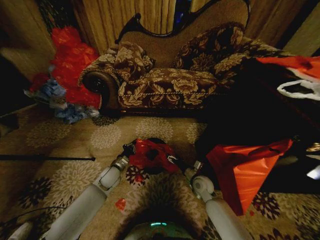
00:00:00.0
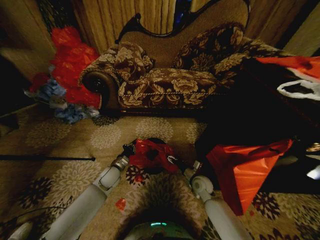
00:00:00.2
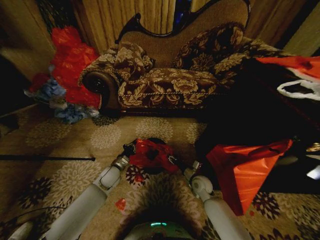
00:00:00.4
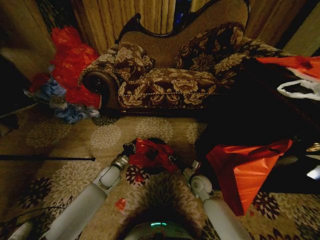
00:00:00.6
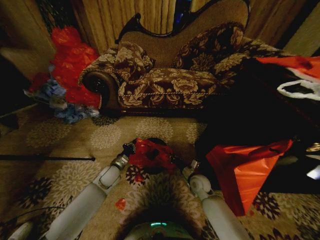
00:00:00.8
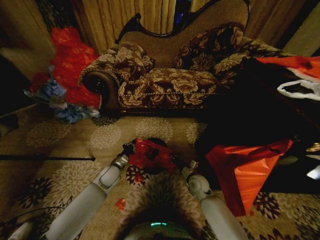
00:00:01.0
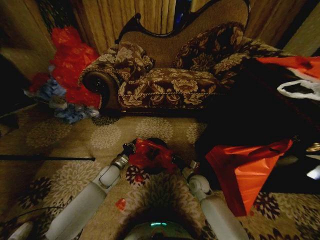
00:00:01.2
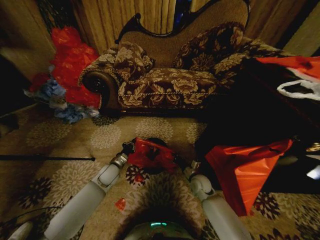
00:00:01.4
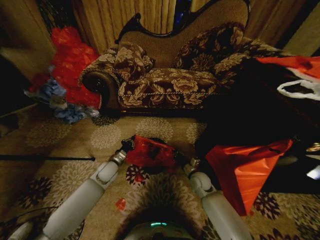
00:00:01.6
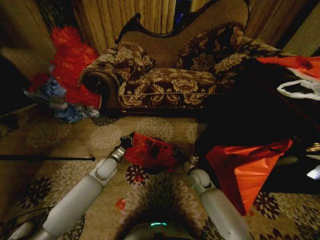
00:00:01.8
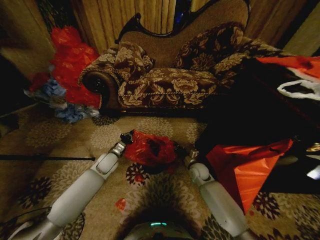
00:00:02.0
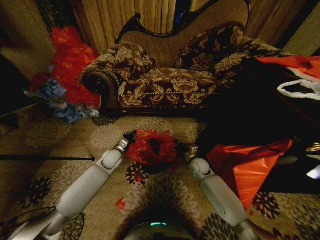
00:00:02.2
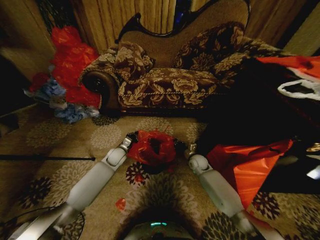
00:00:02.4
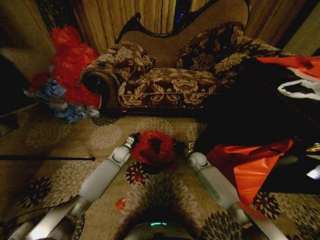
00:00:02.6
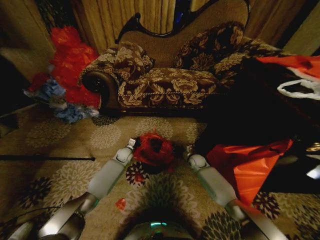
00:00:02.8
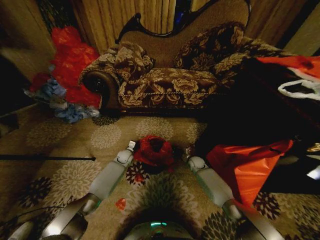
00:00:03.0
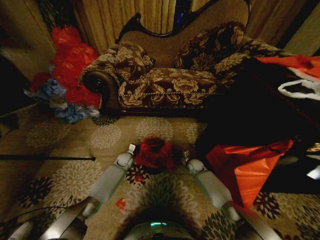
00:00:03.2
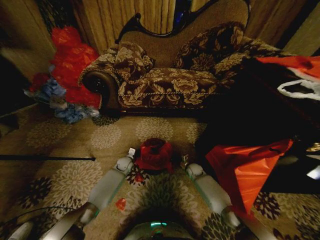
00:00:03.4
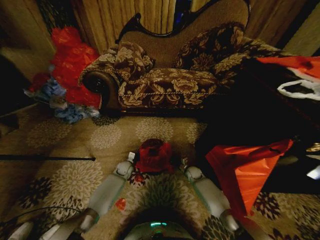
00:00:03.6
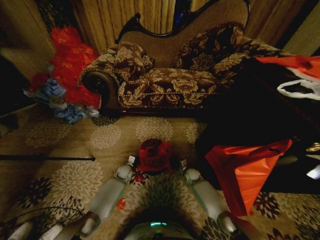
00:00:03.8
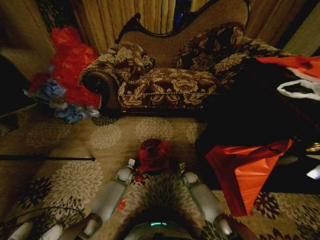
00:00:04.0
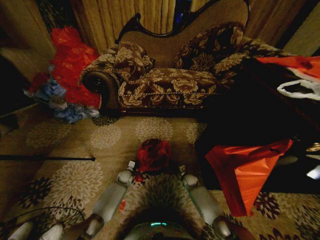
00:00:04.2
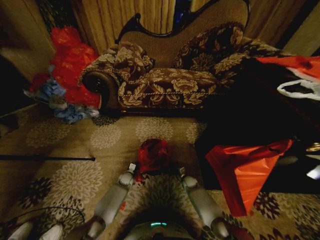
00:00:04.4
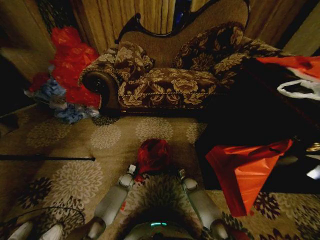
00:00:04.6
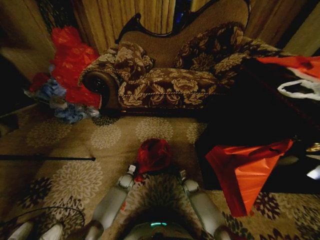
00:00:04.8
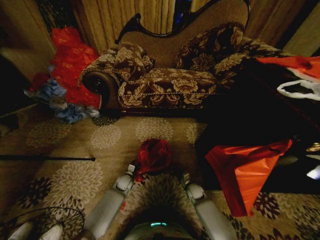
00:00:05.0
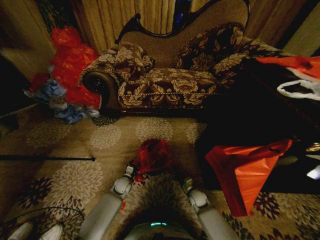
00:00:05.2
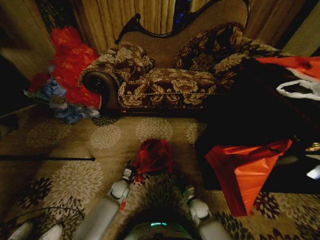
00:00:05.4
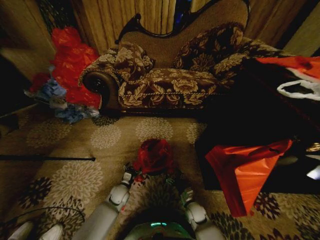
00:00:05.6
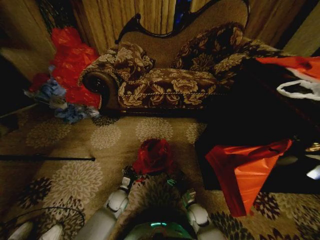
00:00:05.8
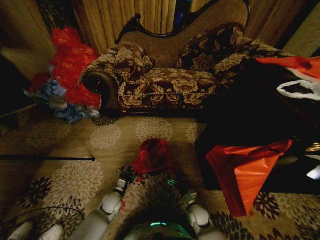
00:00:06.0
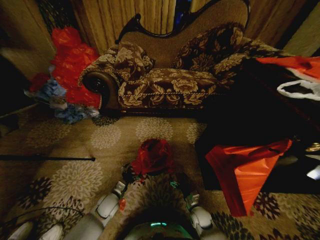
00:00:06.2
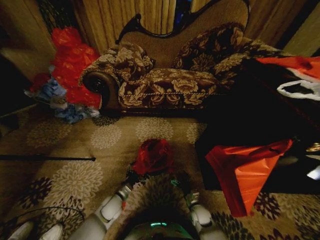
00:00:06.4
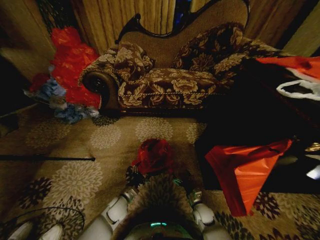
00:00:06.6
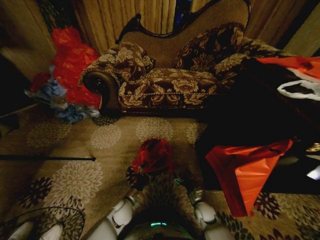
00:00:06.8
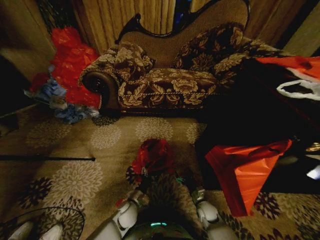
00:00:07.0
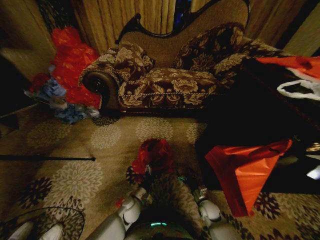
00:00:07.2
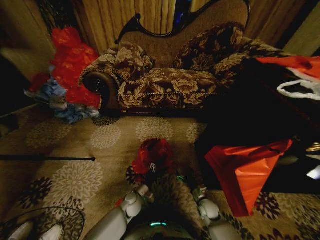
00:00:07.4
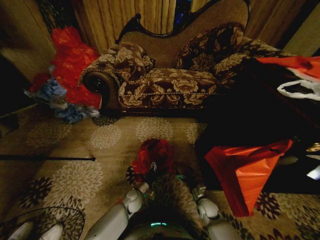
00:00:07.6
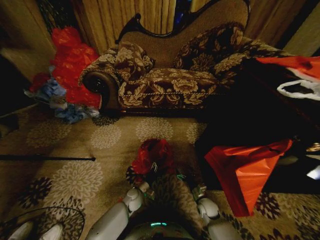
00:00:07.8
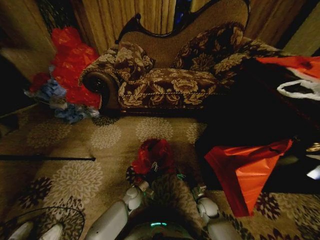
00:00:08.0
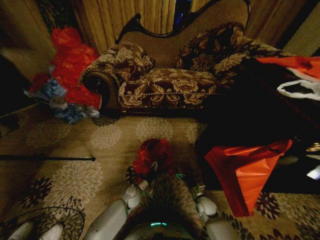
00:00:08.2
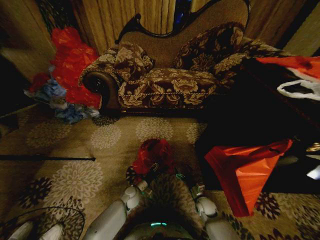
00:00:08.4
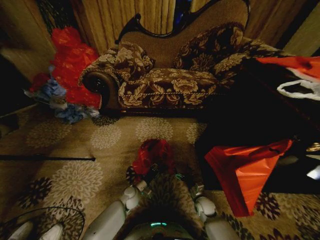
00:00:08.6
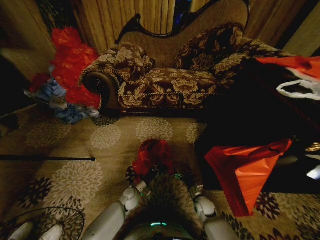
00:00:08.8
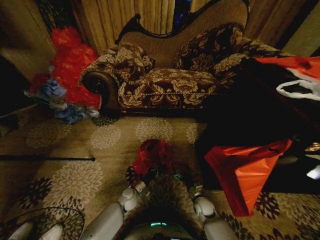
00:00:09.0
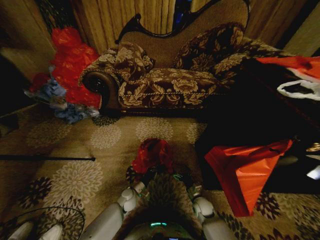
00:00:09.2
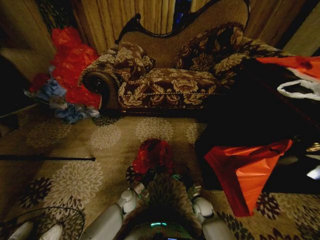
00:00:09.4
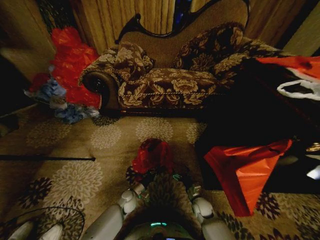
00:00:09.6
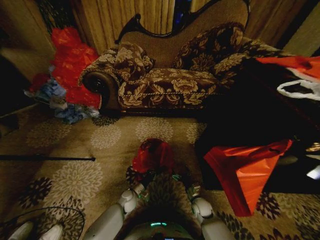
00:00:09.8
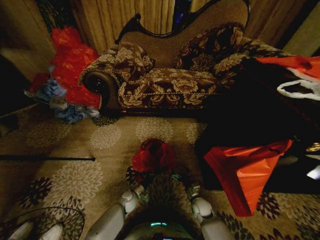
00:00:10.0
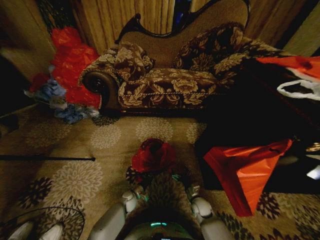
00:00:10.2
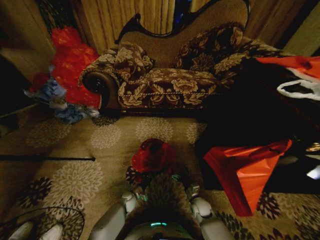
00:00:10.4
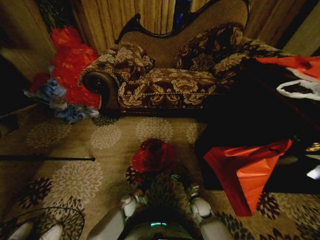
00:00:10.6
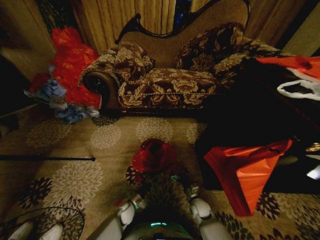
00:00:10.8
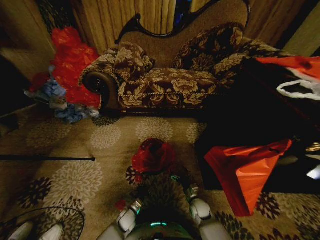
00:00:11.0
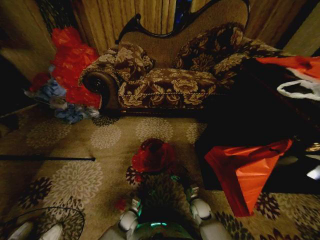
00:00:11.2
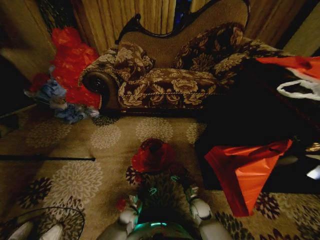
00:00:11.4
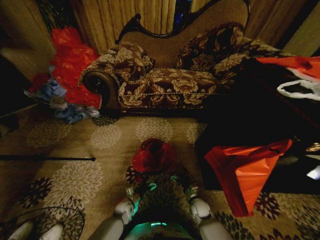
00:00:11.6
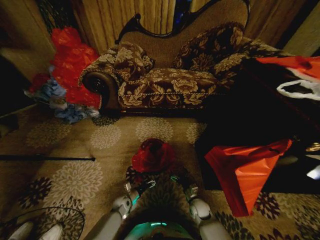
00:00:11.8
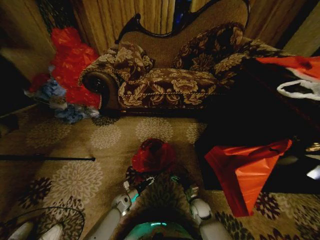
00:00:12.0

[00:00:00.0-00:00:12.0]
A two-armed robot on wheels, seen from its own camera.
Task of the whole recording: Place a garbage bag over the trash bin.
00:00:00.0 to 00:00:01.6: The right gripper closes its fingers.
00:00:01.6 to 00:00:03.0: The grippers both shift forward and downward by roughly 15 cm.
00:00:03.0 to 00:00:04.4: The grippers both shift downward and backward by approximately 15 cm.
00:00:04.4 to 00:00:06.0: The left gripper goes some 15 cm backward and upward, and opens its fingers. Meanwhile the right gripper travels backward by about 15 cm, and opens up.
00:00:06.0 to 00:00:07.6: The left gripper moves to the right, about 10 cm, while the right gripper heads to the right, covering roughly 5 cm.
00:00:07.6 to 00:00:09.0: The left gripper closes up.
00:00:09.0 to 00:00:10.4: The left gripper moves downward, some 10 cm.
00:00:10.4 to 00:00:12.0: The left gripper reaches approximately 10 cm backward, then returns, and opens its fingers.

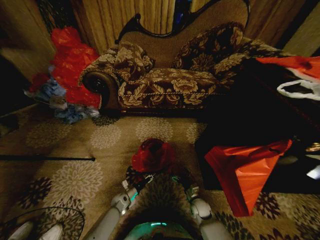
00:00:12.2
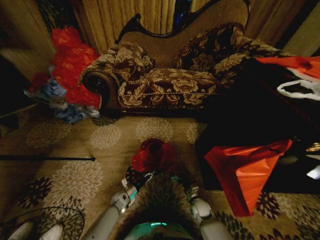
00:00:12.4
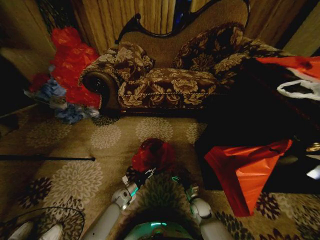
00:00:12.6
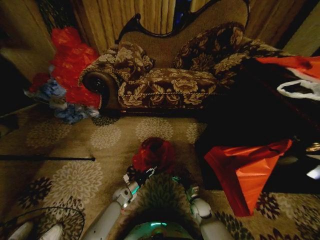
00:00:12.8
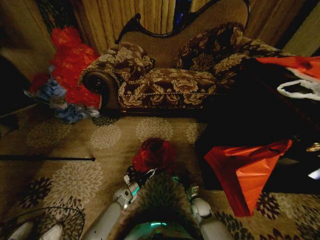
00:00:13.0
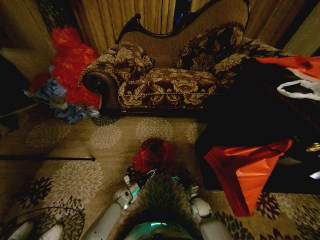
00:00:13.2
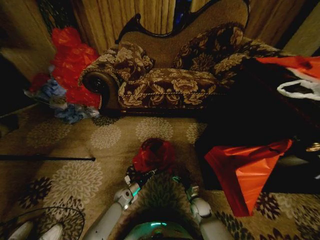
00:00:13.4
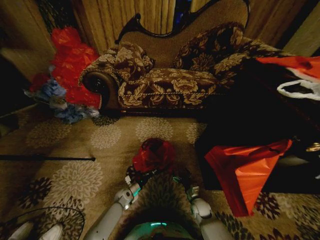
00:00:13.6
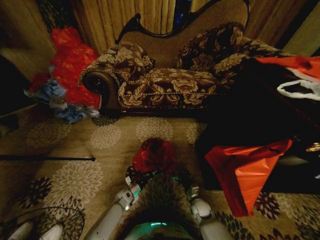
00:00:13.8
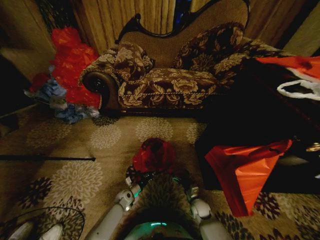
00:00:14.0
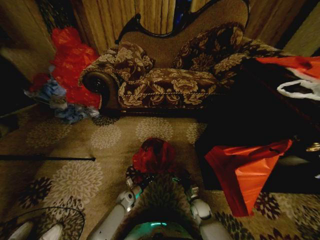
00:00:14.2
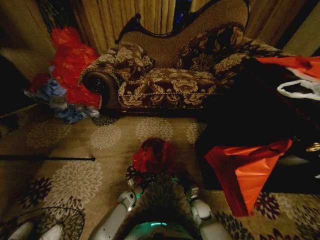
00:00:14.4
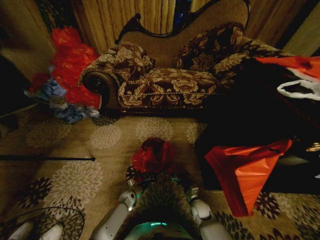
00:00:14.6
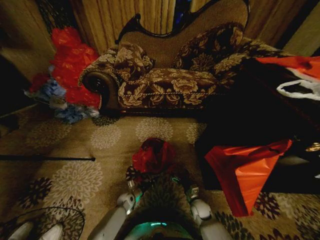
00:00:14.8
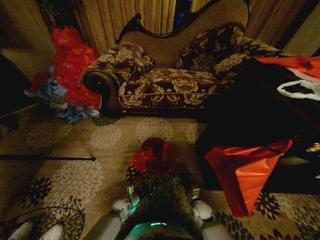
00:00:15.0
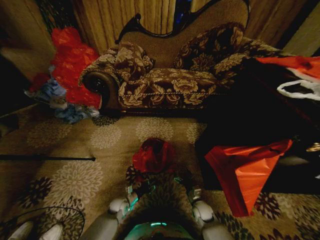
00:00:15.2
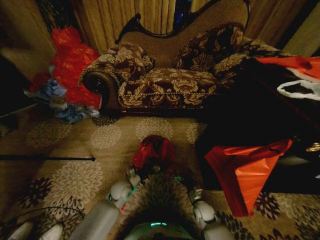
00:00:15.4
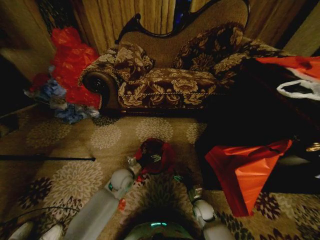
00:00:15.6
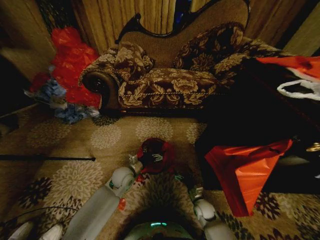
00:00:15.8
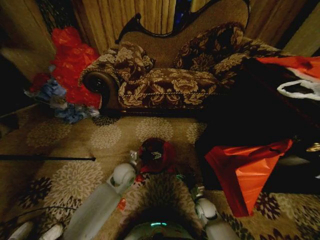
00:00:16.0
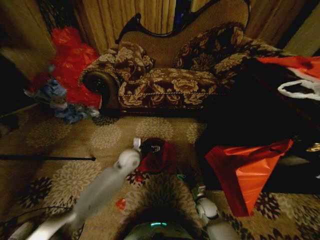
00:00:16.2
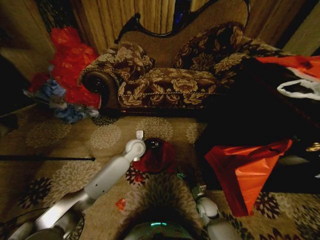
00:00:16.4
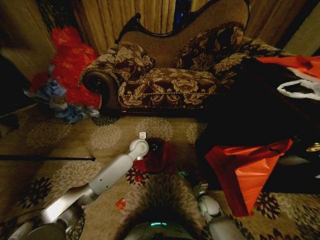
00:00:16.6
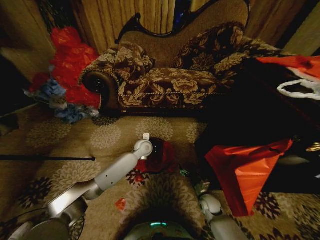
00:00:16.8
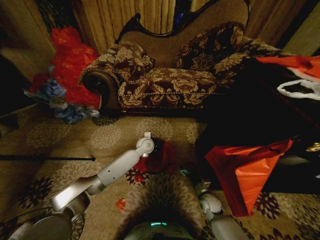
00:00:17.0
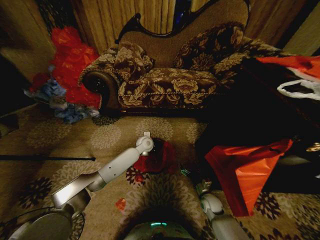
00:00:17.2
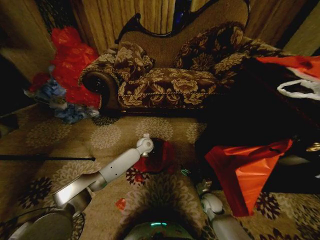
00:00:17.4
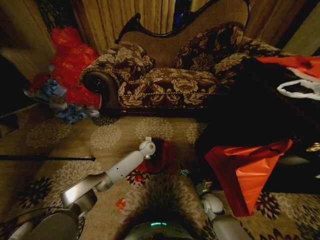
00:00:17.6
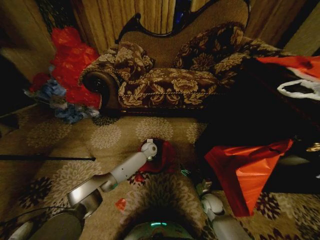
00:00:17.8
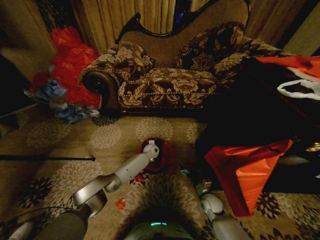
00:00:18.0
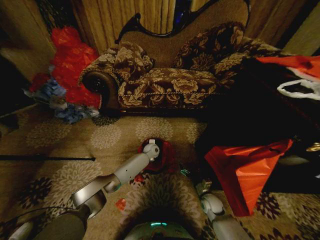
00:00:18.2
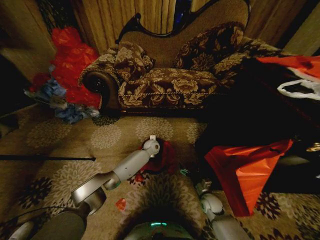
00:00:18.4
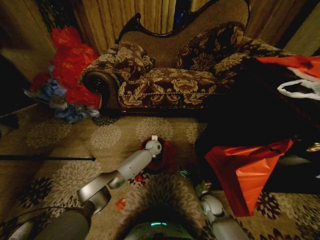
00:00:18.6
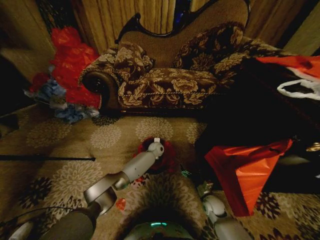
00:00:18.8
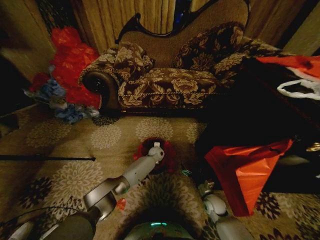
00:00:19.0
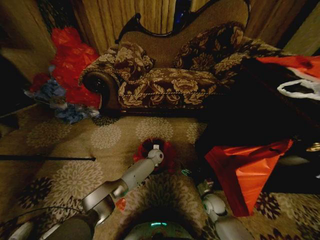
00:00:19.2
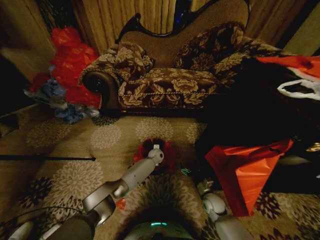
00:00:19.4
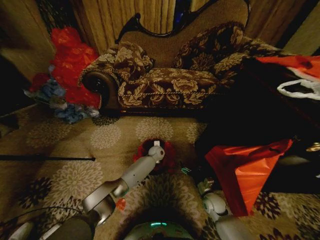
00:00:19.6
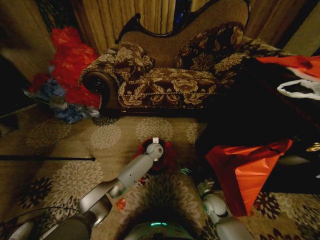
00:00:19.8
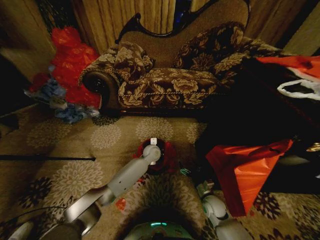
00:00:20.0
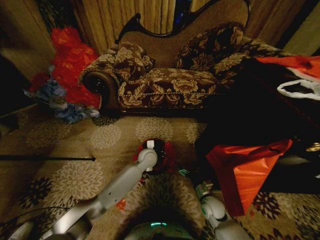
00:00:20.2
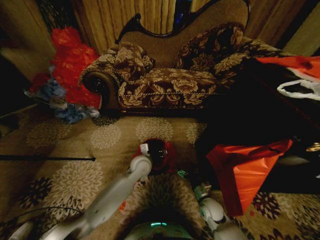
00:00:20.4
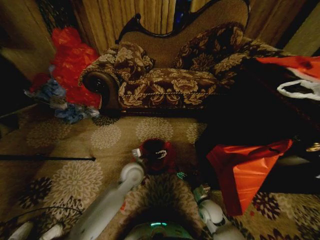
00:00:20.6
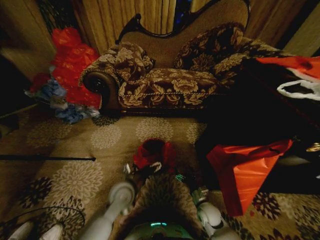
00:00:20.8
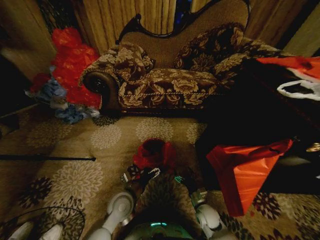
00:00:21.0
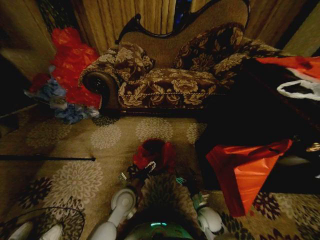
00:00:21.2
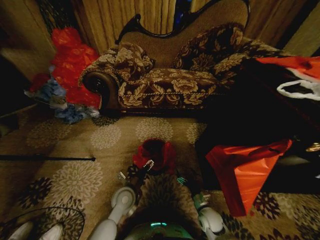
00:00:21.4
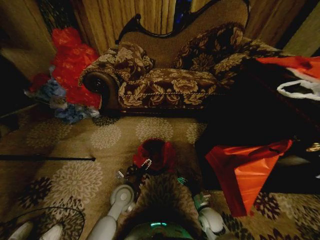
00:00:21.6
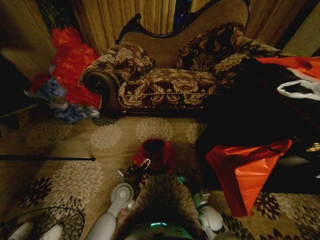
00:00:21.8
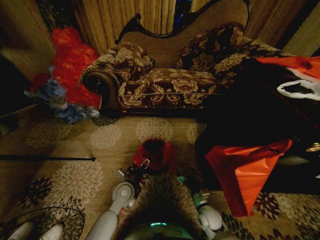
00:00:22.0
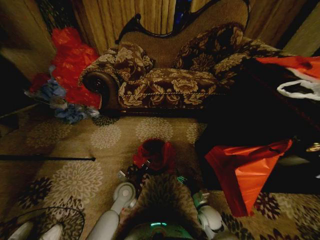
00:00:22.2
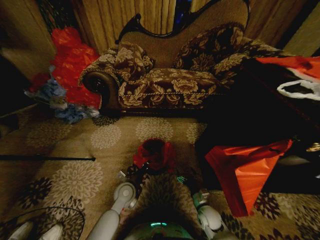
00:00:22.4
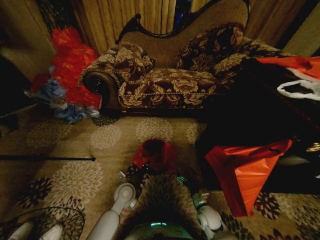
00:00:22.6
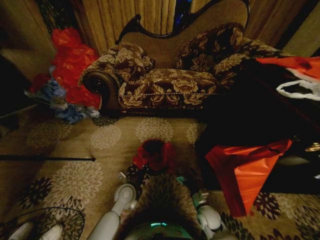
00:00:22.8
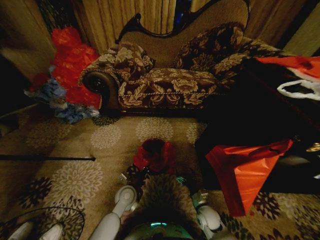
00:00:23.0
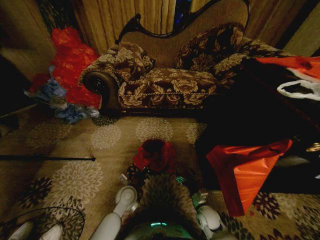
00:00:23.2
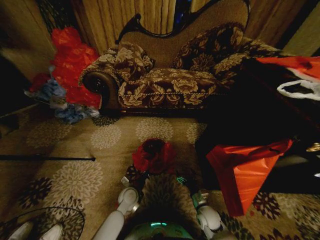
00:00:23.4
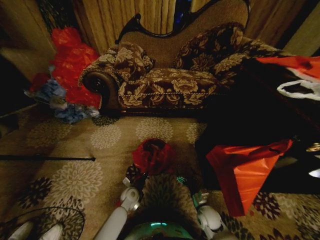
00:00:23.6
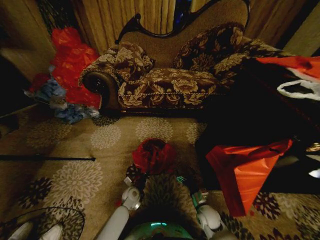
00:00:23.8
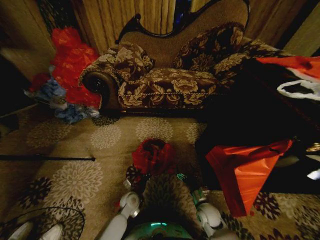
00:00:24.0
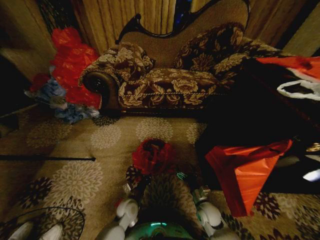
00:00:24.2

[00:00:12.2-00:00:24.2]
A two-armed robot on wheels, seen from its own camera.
Task of the whole recording: Place a garbage bag over the trash bin.
00:00:12.2 to 00:00:13.8: The left gripper closes its fingers.
00:00:13.8 to 00:00:15.2: The left gripper moves some 5 cm, and opens.
00:00:15.2 to 00:00:16.6: The left gripper heads upward, forward and to the right, covering approximately 35 cm, and opens, then closes again.
00:00:16.6 to 00:00:18.2: The left gripper travels downward, forward and to the right by about 15 cm, and closes its fingers.
00:00:18.2 to 00:00:19.8: The grippers stay close to where they were, moving slightly.
00:00:19.8 to 00:00:21.2: The left gripper is displaced backward and to the left by about 30 cm, and opens up. The right gripper moves backward, about 5 cm.
00:00:21.2 to 00:00:22.6: The left gripper closes.
00:00:22.6 to 00:00:24.2: The left gripper is displaced downward by roughly 10 cm.
